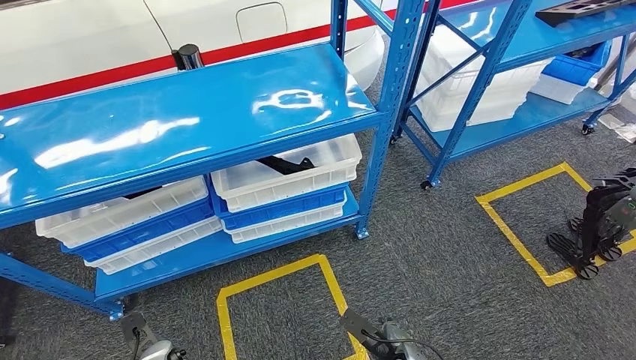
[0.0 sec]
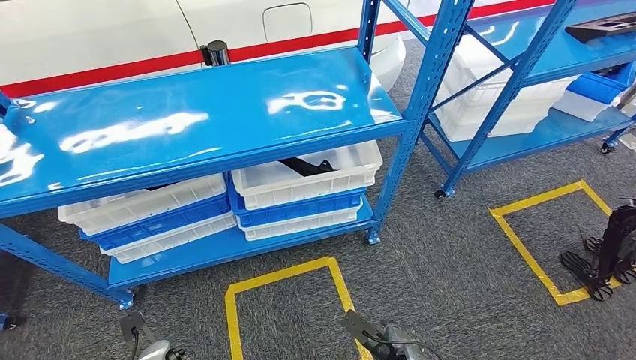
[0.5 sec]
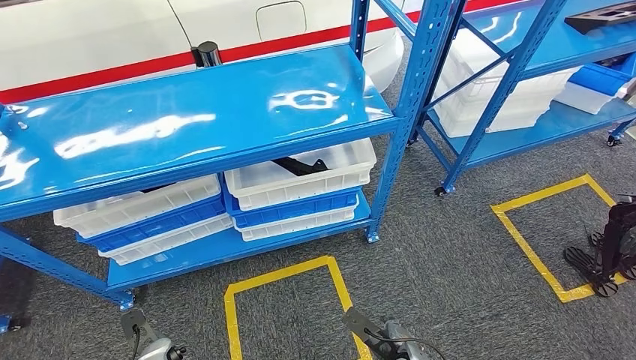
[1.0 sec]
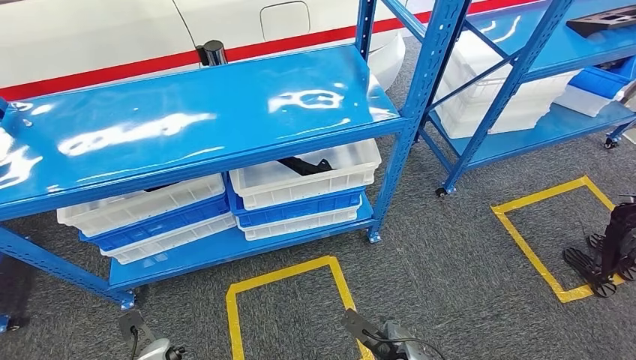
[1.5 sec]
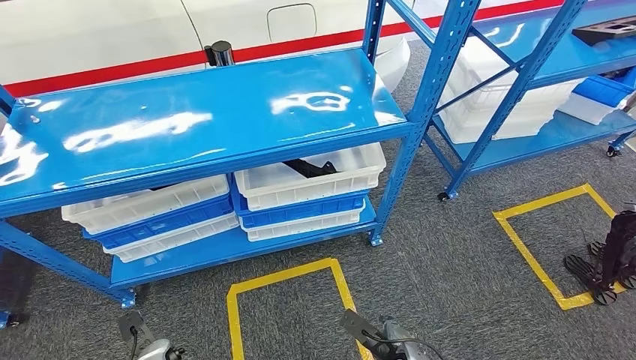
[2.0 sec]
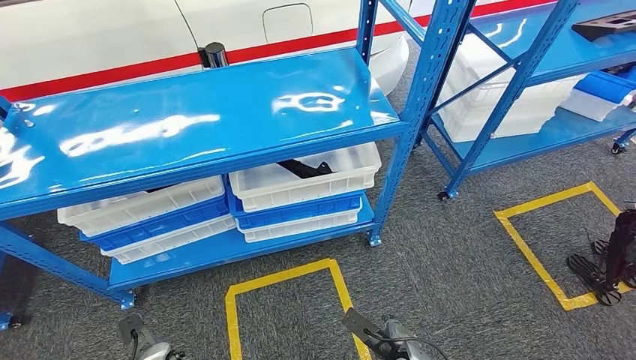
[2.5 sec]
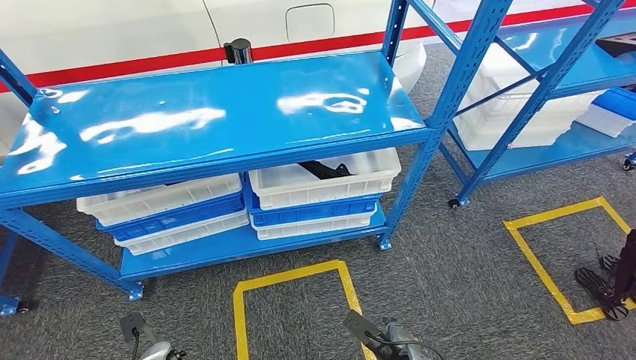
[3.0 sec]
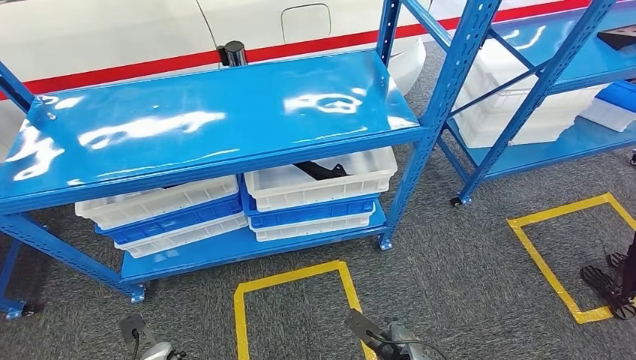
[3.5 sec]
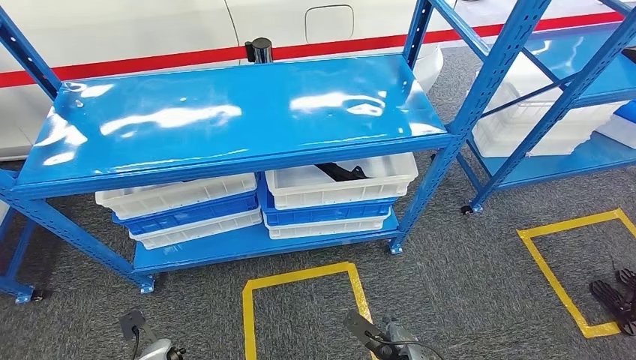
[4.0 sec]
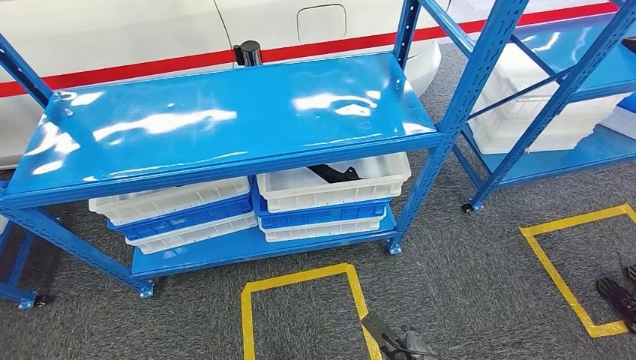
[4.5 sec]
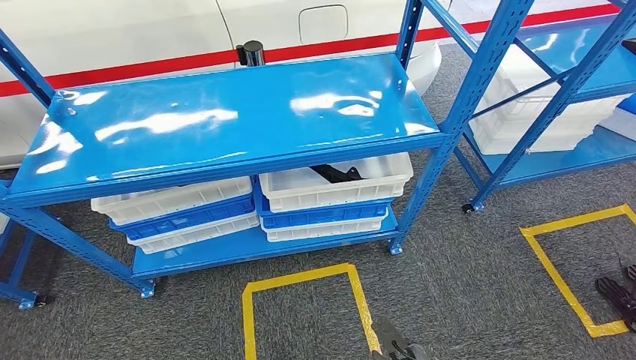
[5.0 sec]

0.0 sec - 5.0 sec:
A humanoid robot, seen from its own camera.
Step, 0.0 sec - 5.0 sec: Return to the initial position at the shelf.
